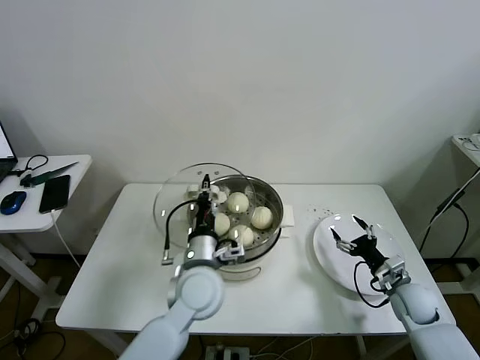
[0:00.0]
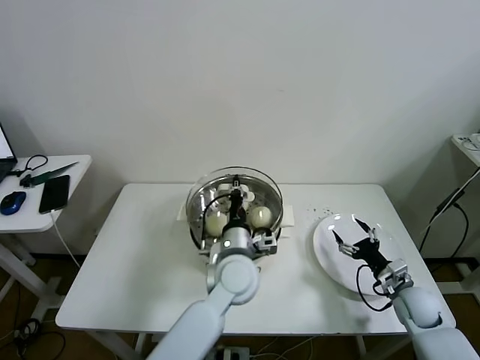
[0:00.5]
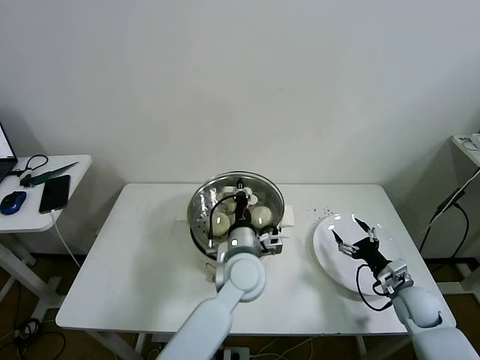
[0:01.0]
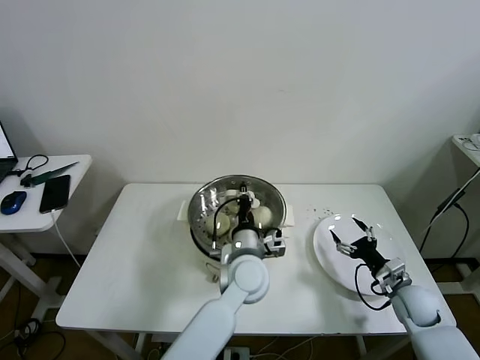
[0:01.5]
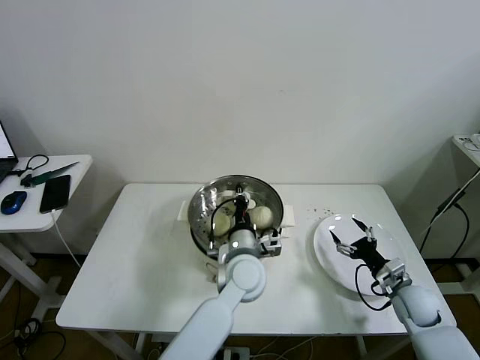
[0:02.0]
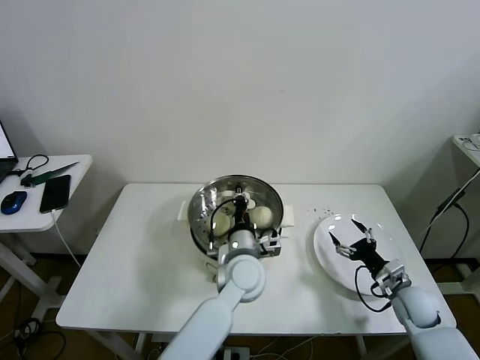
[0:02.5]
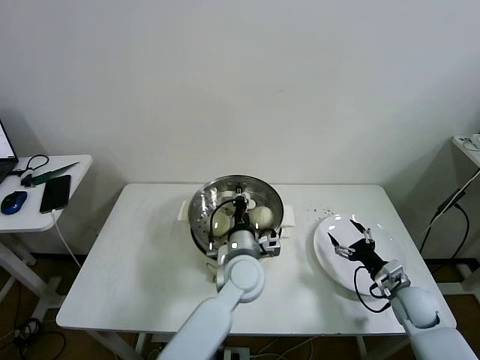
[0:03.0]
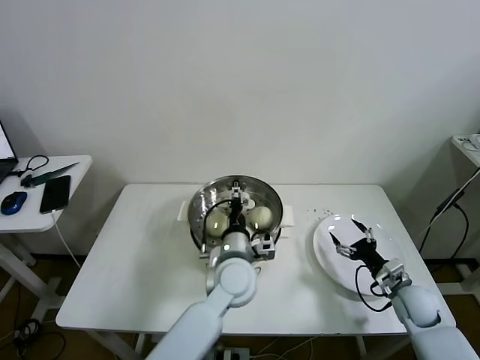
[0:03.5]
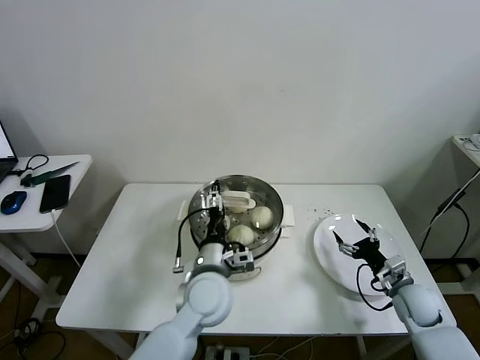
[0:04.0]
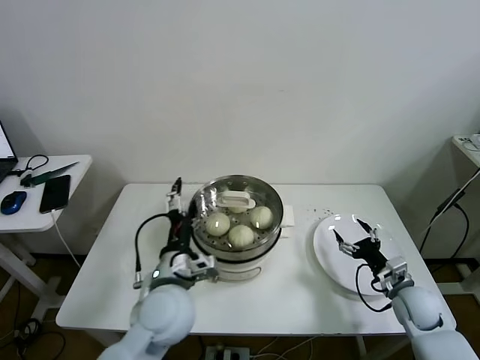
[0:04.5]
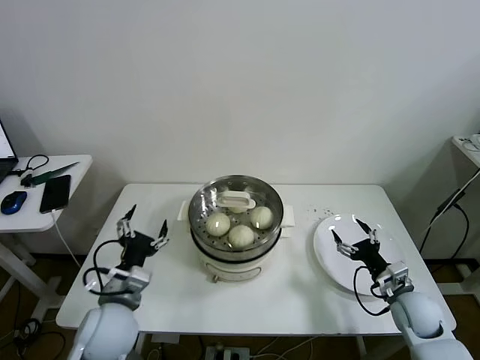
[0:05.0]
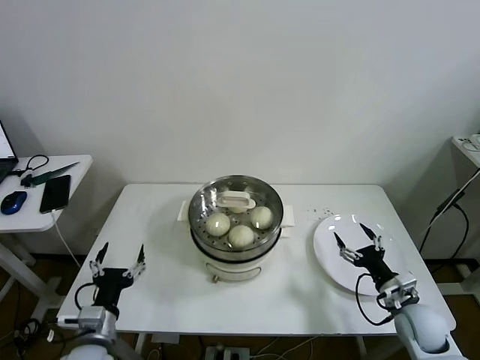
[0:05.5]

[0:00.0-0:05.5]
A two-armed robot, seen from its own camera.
Task of the whole recording: take steamed baozi put them in steamer then cover it.
Step, 0:00.0 to 0:03.0: Place the pot lid on the steamer with left gripper.
0:00.0 to 0:02.0: The left gripper goes roughly 10 cm to the right and forward.
0:02.0 to 0:03.5: The left gripper opens its fingers.
0:03.5 to 0:05.5: The right gripper moves approximately 5 cm. Meanwhile the left gripper travels to the left and backward by some 30 cm, and opens up.
